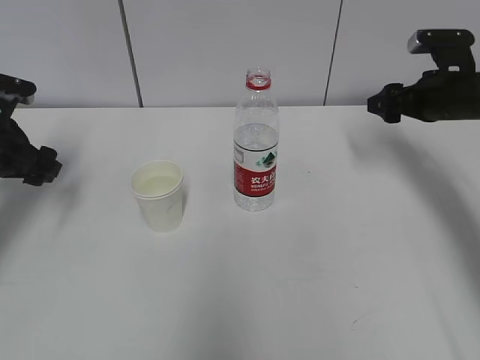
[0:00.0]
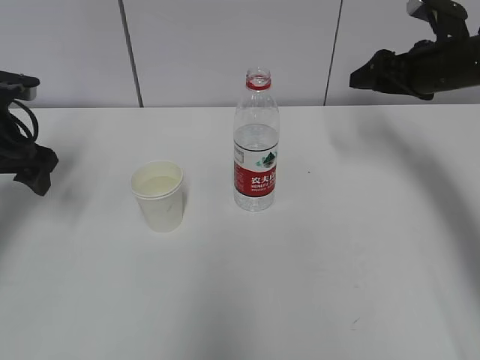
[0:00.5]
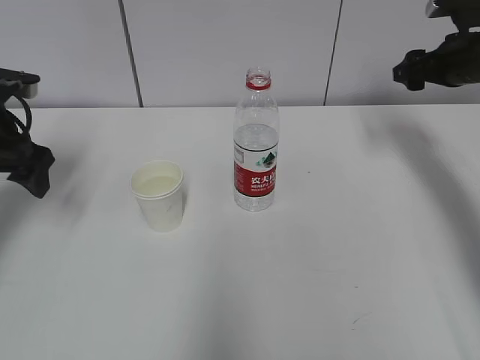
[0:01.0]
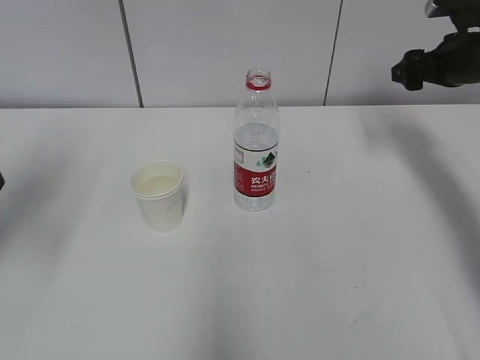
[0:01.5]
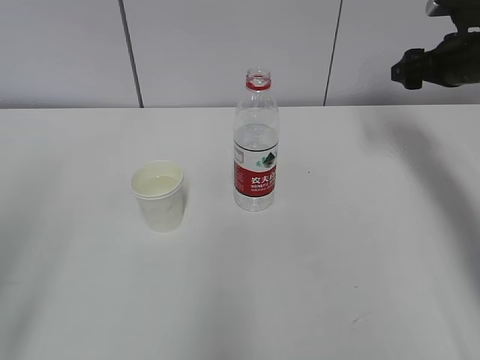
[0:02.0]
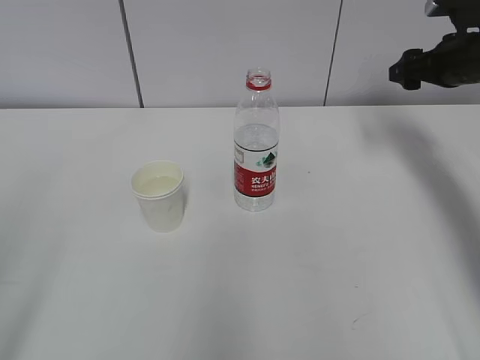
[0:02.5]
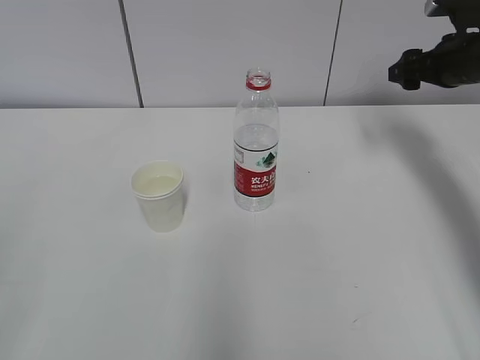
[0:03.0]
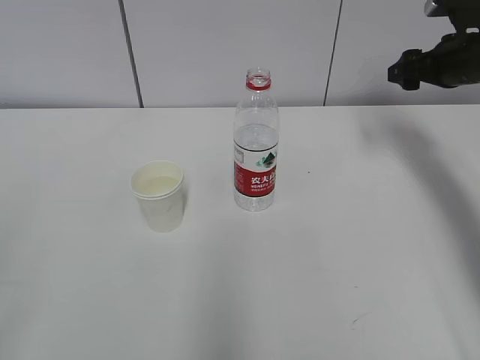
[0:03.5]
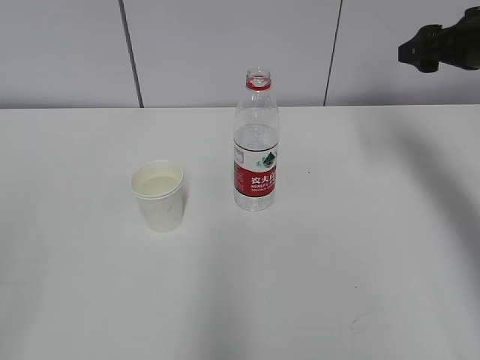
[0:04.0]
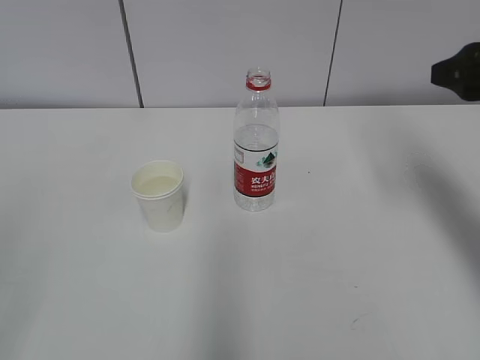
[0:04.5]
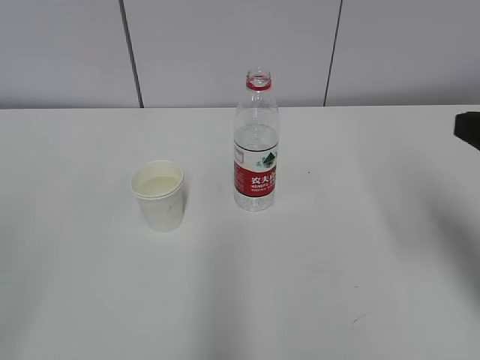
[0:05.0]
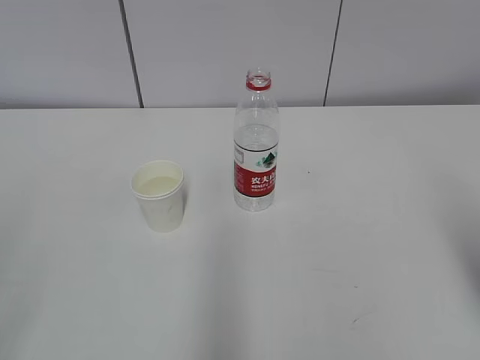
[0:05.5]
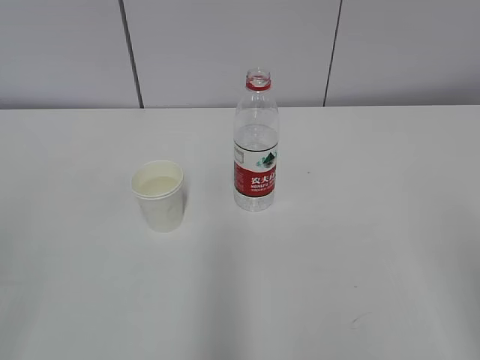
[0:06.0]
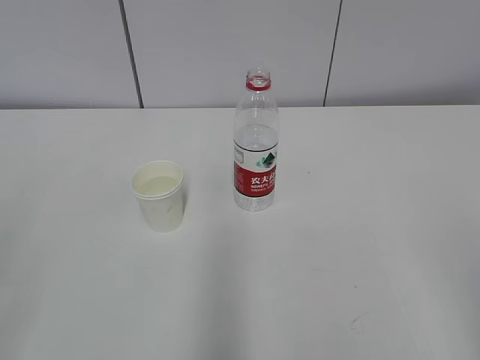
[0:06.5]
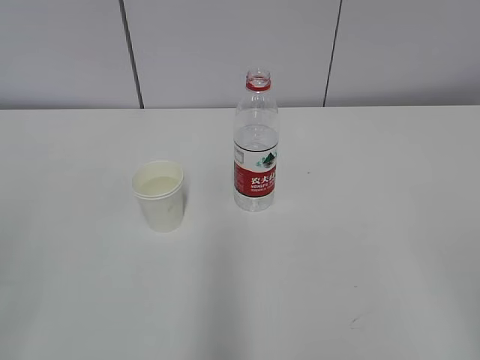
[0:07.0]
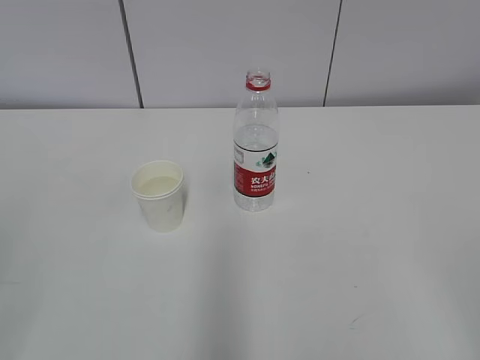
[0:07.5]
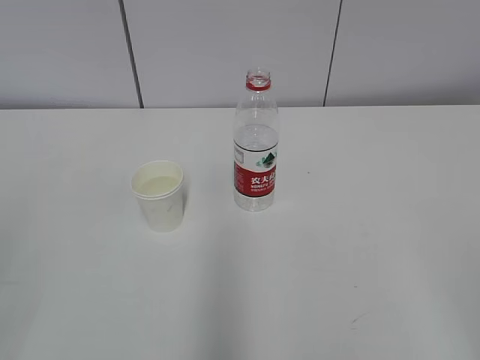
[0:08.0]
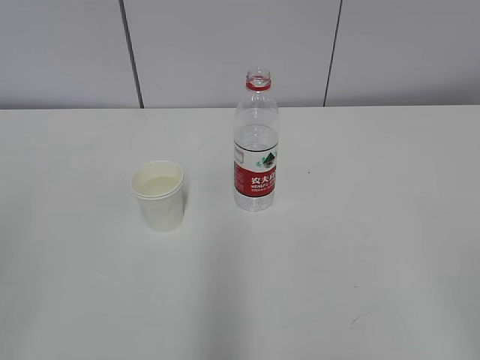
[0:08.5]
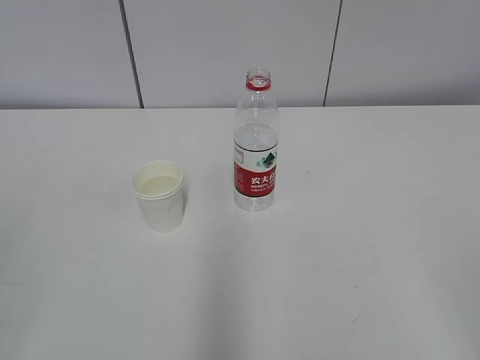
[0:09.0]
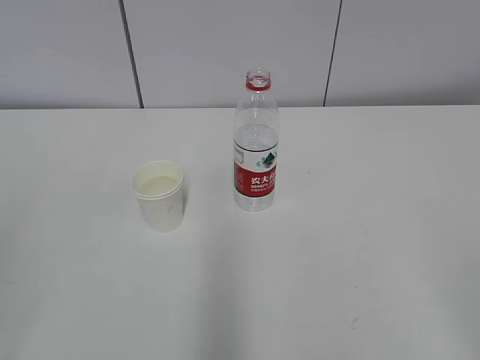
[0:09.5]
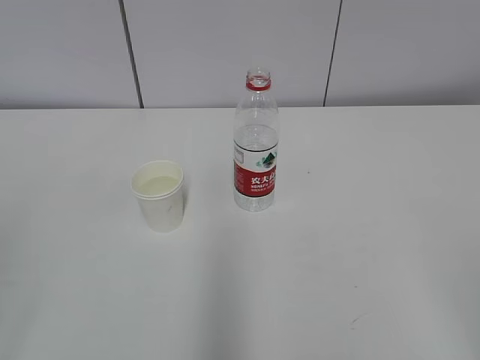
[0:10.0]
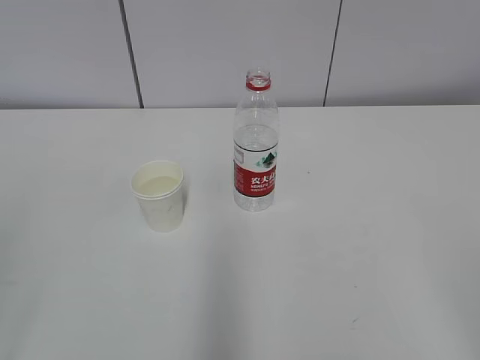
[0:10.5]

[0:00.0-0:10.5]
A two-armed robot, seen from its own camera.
0:00.0 to 0:02.0: The right gripper changes place by roughly 5 cm. Meanwhile the left gripper moves backward and upward, about 30 cm.
0:02.0 to 0:04.0: The right gripper shifts by some 5 cm.
0:04.0 to 0:06.5: The right gripper heads backward, covering some 40 cm.

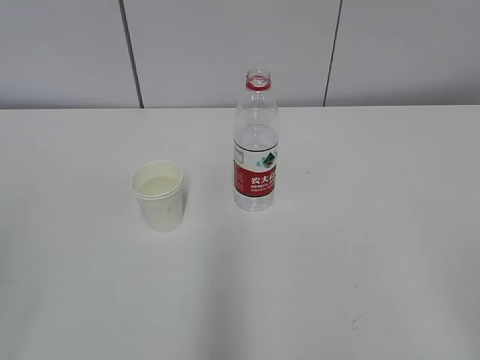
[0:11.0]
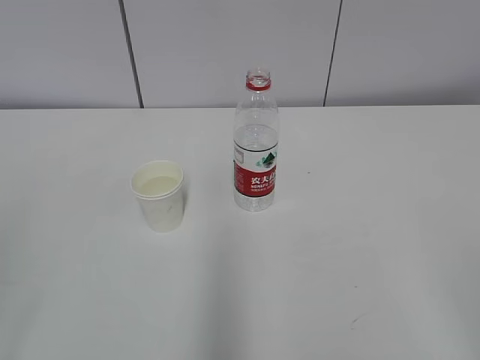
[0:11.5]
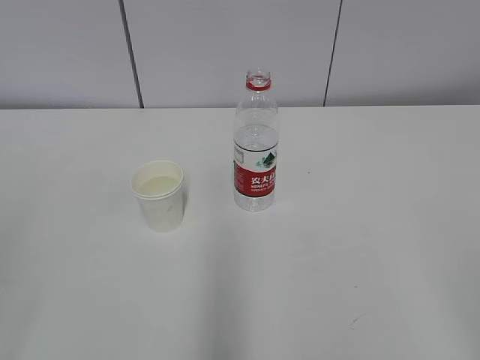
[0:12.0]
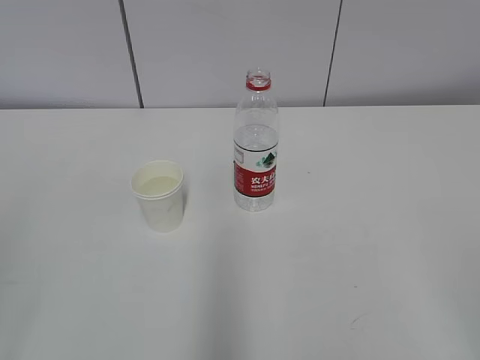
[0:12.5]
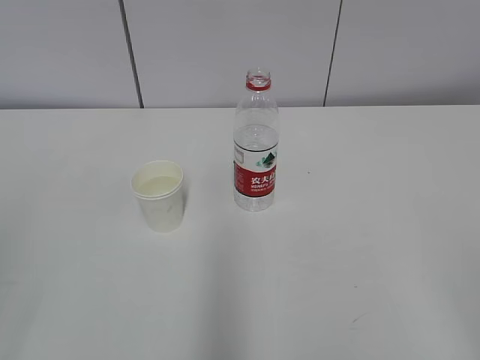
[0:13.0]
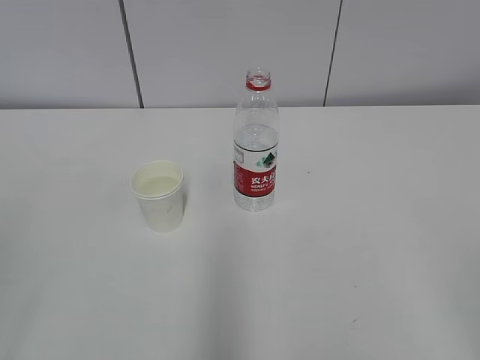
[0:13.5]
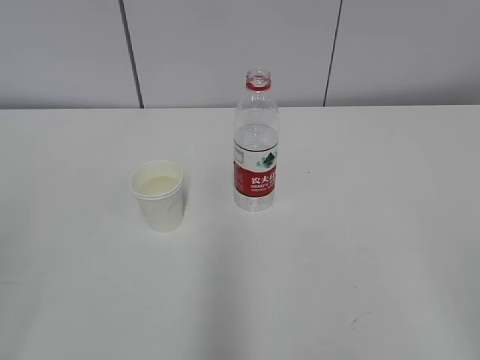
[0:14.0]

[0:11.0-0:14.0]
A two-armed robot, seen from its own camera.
0:11.0 to 0:14.0: Both grippers stay about where they are.

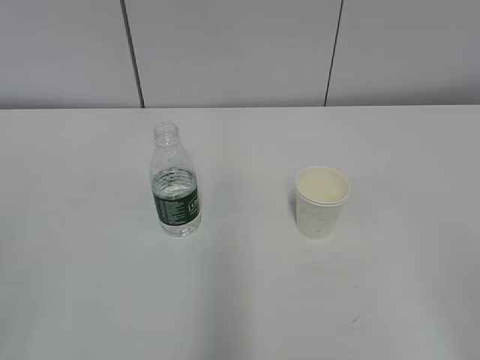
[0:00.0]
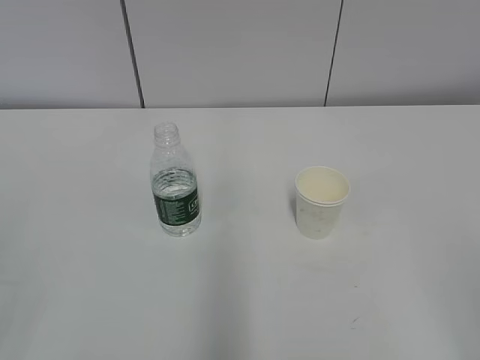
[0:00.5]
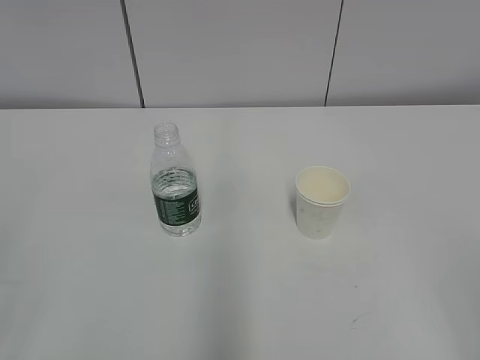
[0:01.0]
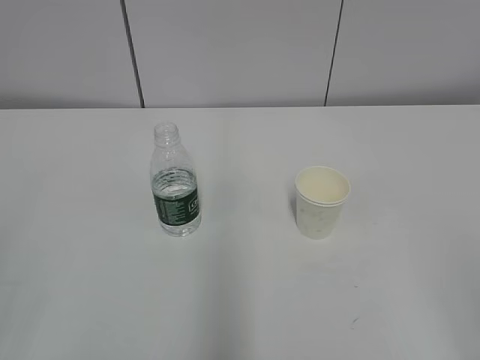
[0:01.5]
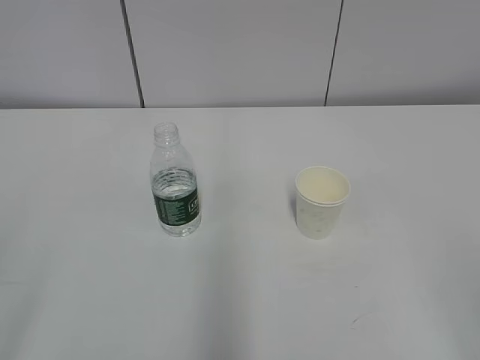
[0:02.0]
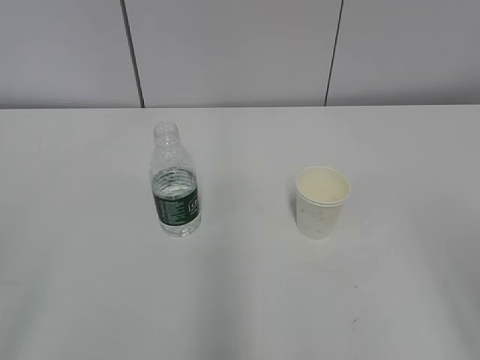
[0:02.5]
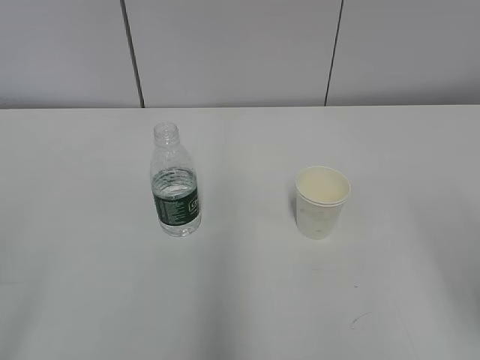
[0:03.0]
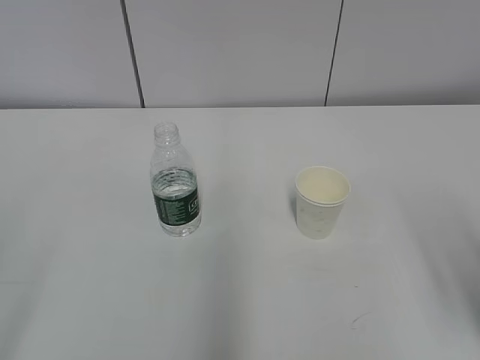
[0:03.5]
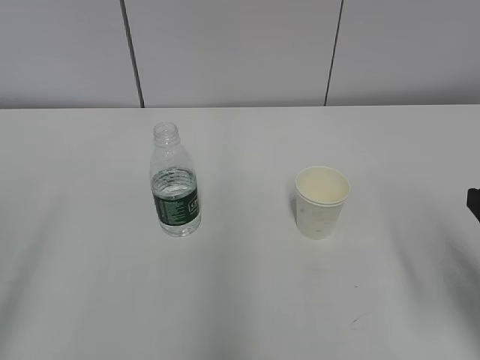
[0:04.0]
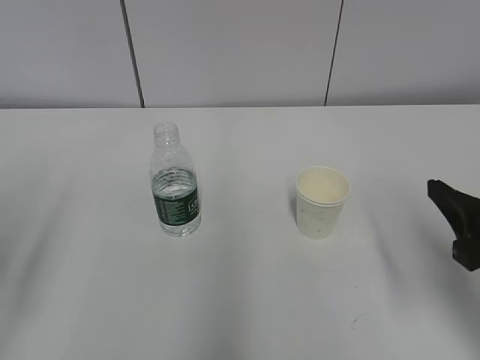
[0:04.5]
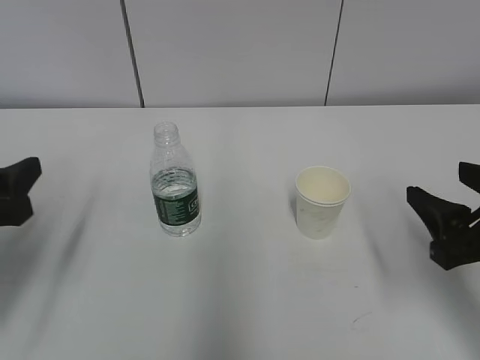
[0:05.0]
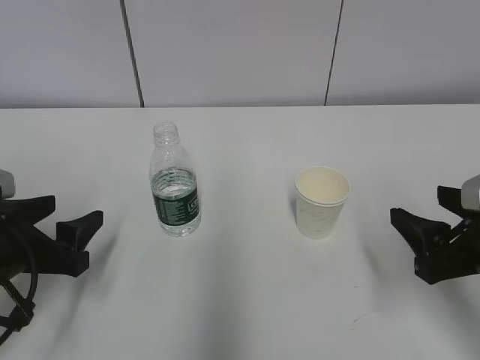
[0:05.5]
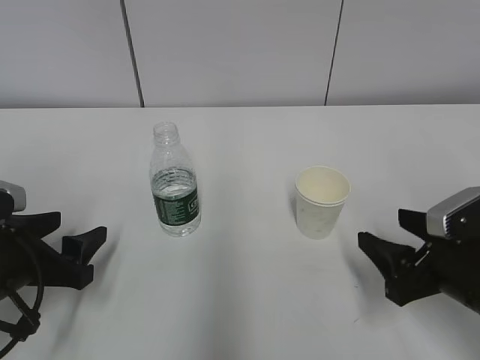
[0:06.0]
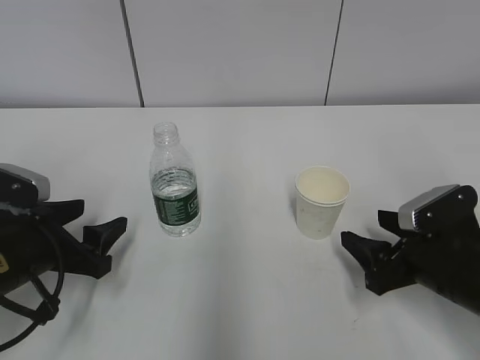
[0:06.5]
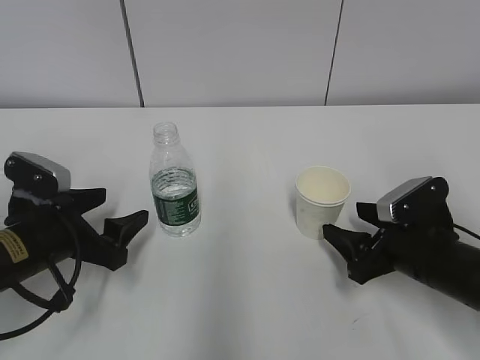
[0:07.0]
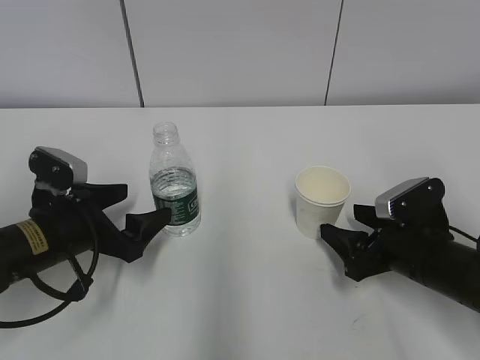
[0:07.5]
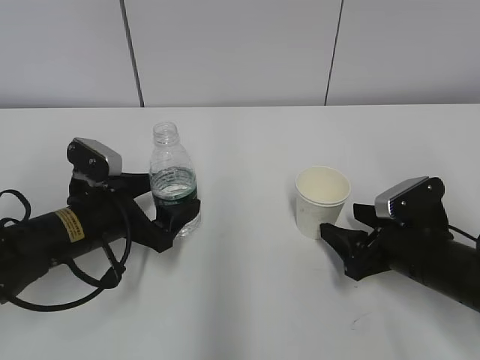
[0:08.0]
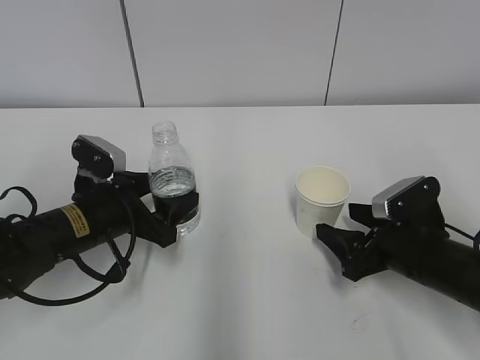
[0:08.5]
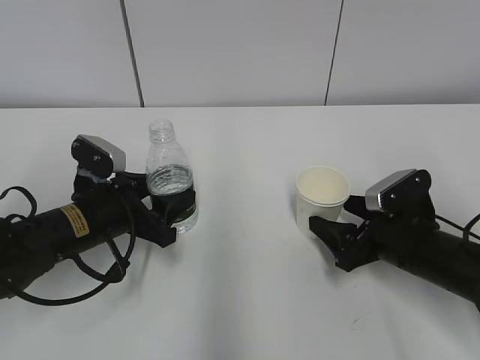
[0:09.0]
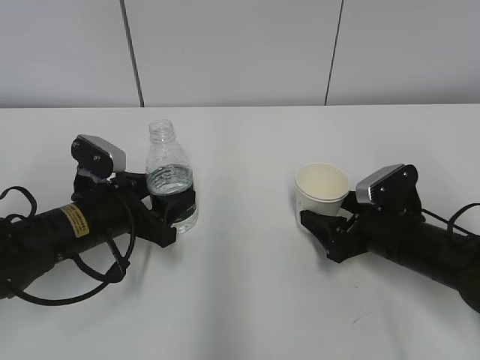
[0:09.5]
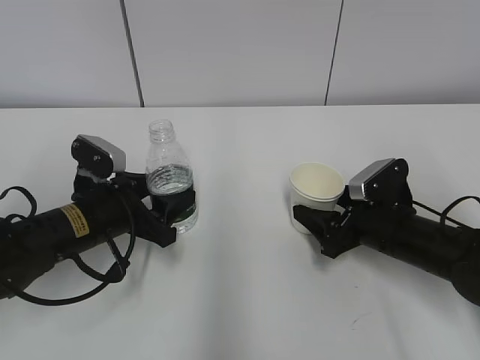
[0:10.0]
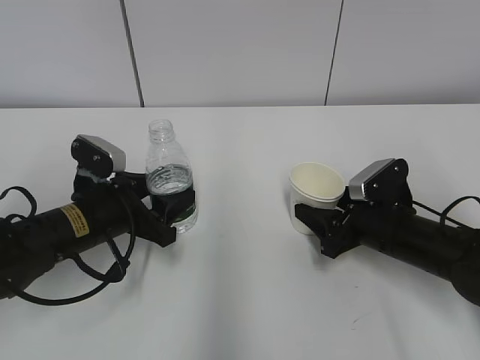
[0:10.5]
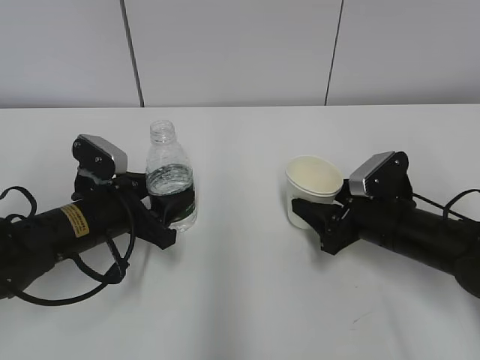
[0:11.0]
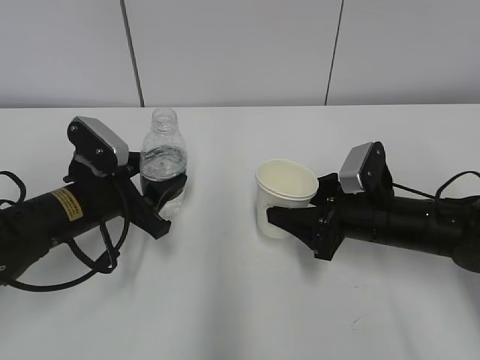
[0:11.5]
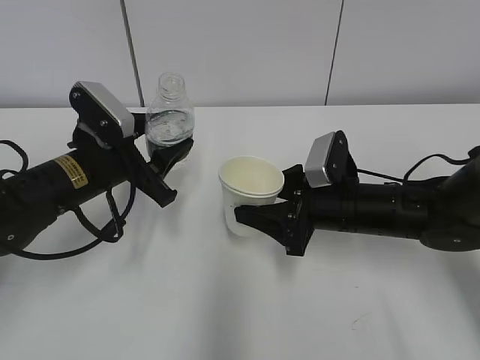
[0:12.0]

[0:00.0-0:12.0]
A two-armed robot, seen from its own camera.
Step, 0:00.0 to 0:09.0: Grab the paper cup with the right hand.
Step, 0:09.5 to 0:12.0: Lift the paper cup with the right hand.
0:02.0 to 0:04.0: The right gripper travels forward by about 15 cm.
0:04.0 to 0:06.0: The right gripper shifts some 10 cm downward and forward; the left gripper shifts about 25 cm forward and downward.
0:06.0 to 0:08.0: The left gripper shifts some 10 cm forward and to the right. Meanwhile the right gripper heads forward, covering approximately 5 cm.
0:08.0 to 0:10.0: The left gripper closes.
0:10.0 to 0:12.0: The left gripper travels upward by roughly 5 cm, while the right gripper goes about 5 cm to the left, and closes its fingers.
